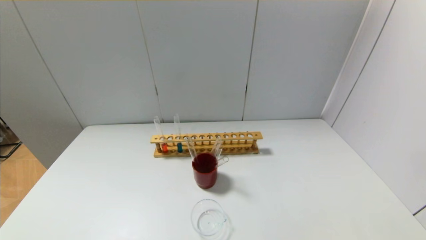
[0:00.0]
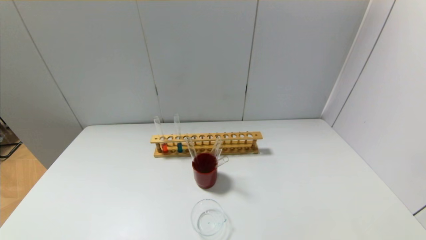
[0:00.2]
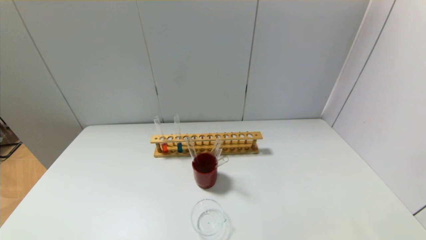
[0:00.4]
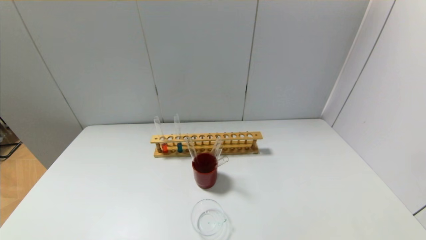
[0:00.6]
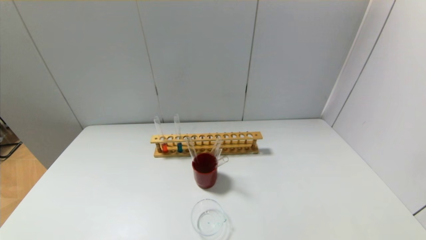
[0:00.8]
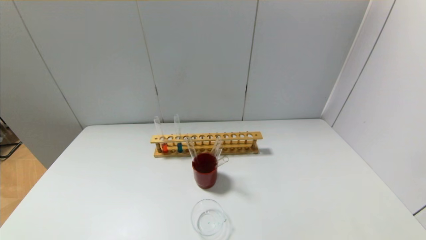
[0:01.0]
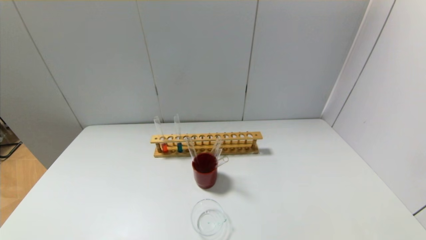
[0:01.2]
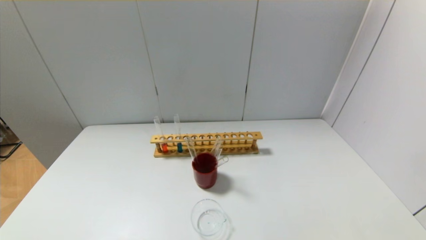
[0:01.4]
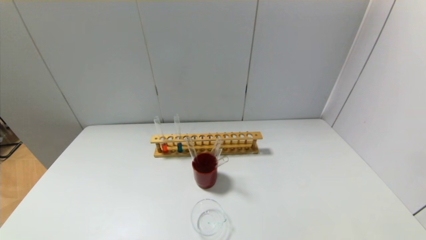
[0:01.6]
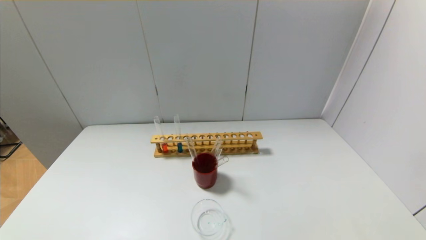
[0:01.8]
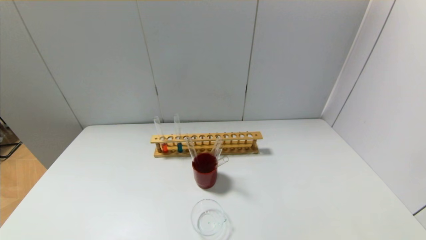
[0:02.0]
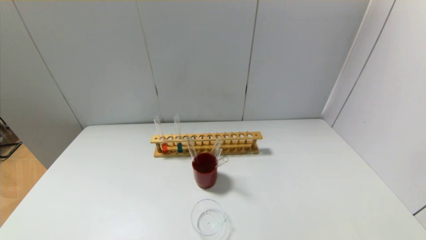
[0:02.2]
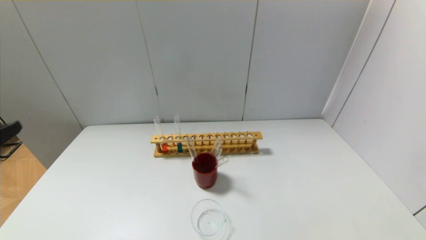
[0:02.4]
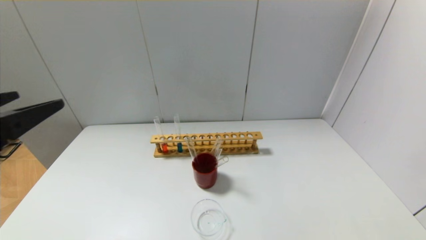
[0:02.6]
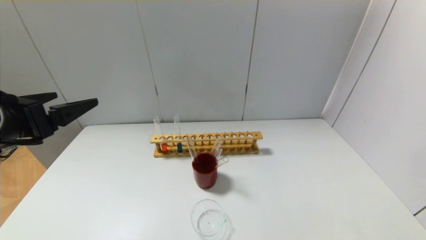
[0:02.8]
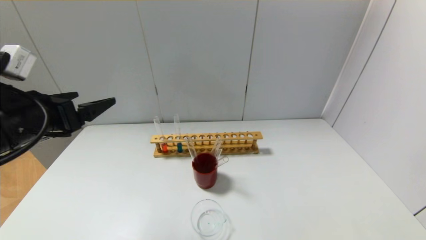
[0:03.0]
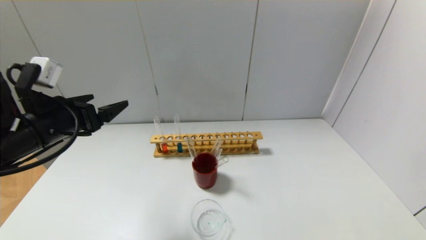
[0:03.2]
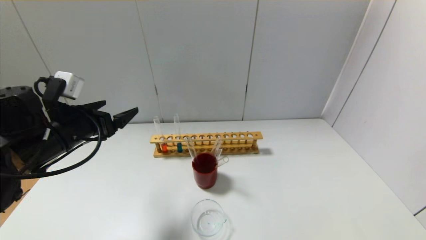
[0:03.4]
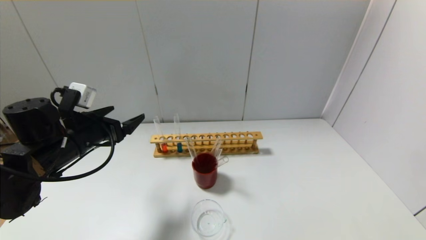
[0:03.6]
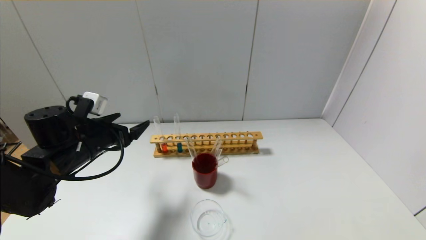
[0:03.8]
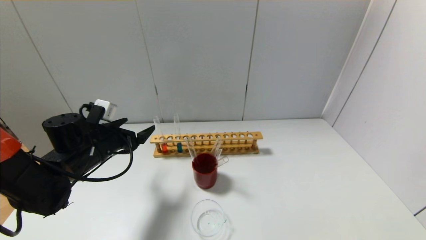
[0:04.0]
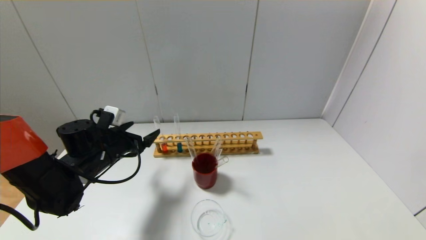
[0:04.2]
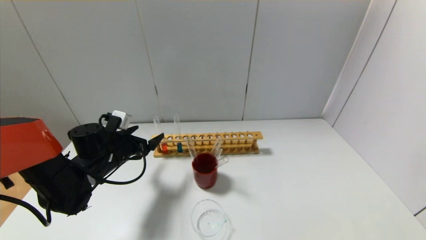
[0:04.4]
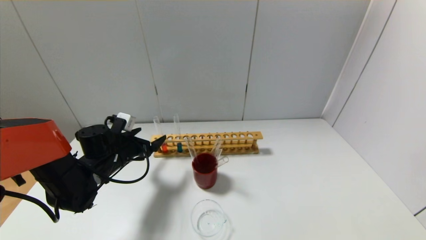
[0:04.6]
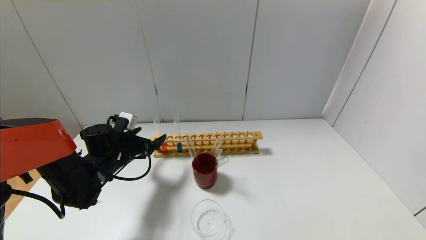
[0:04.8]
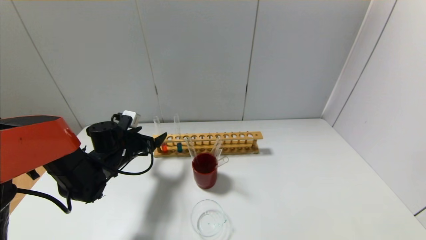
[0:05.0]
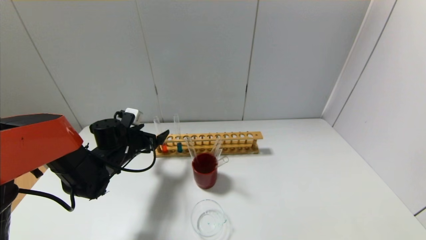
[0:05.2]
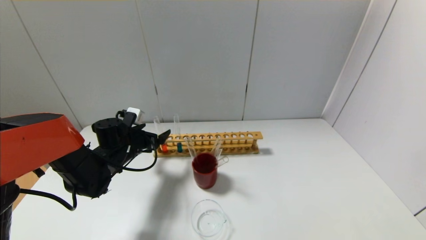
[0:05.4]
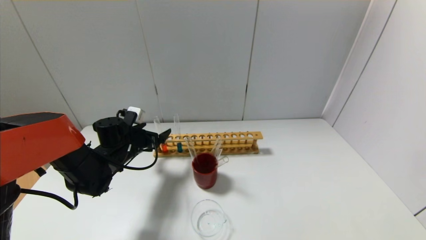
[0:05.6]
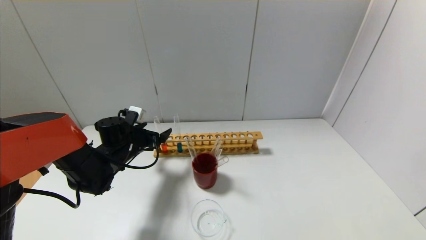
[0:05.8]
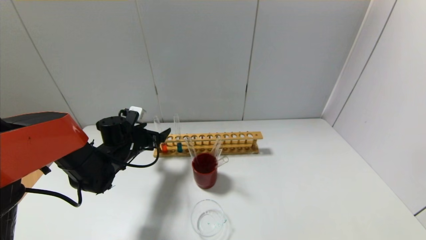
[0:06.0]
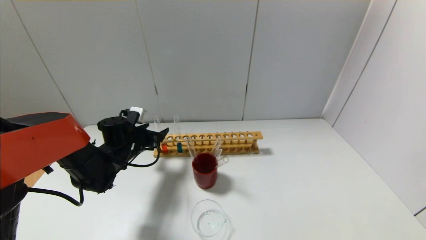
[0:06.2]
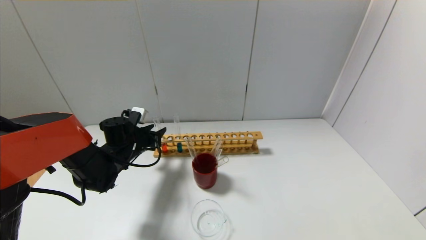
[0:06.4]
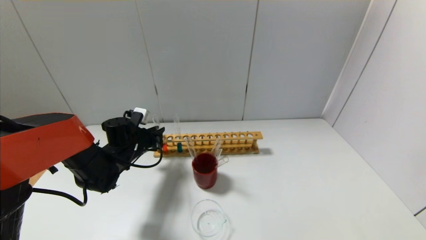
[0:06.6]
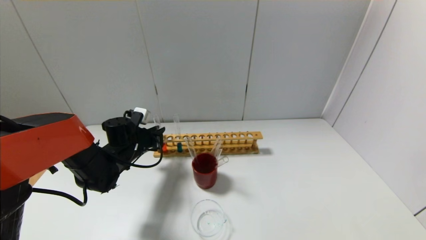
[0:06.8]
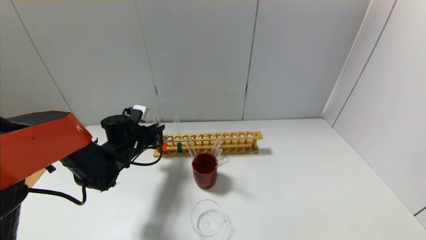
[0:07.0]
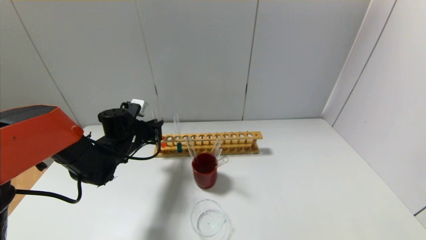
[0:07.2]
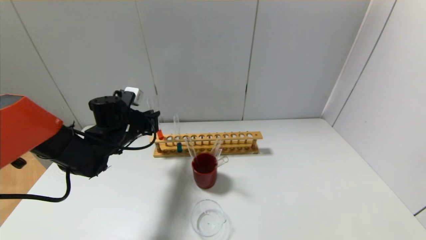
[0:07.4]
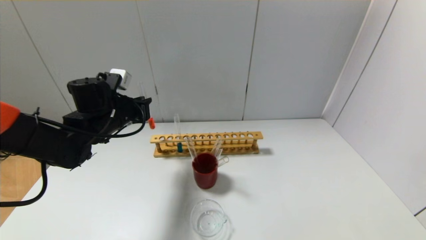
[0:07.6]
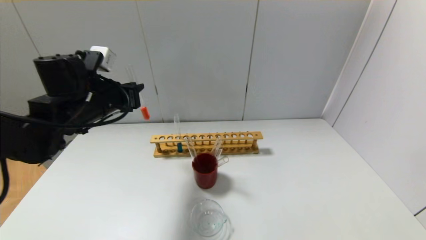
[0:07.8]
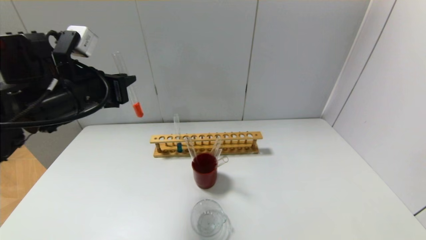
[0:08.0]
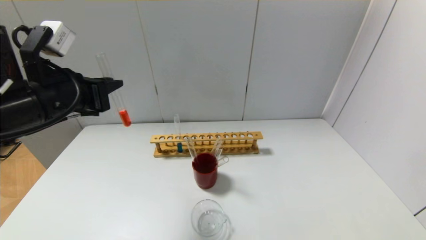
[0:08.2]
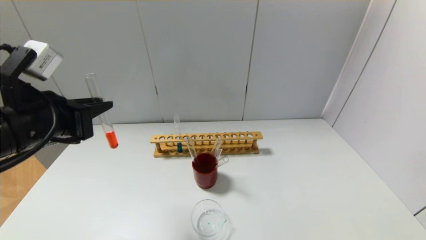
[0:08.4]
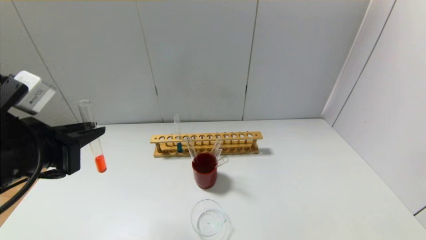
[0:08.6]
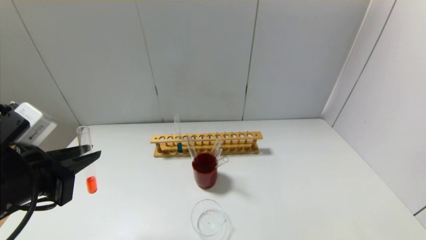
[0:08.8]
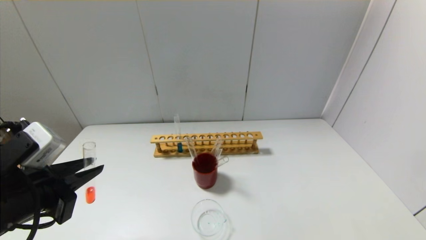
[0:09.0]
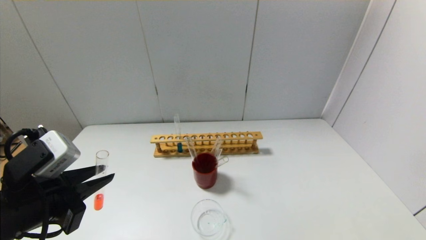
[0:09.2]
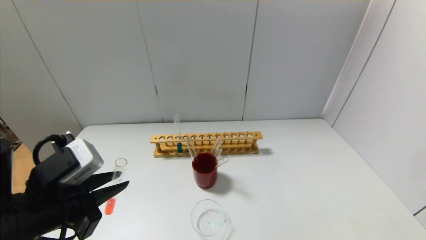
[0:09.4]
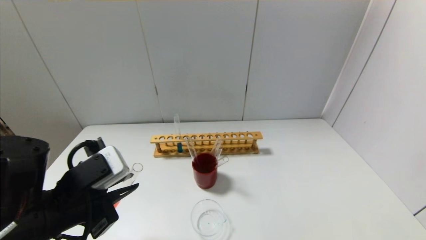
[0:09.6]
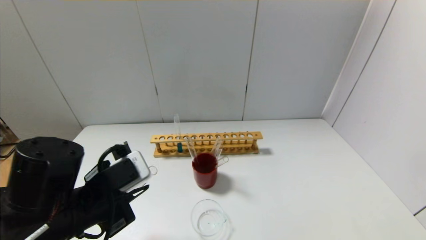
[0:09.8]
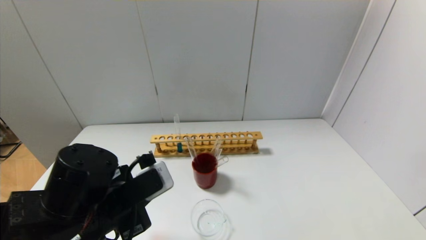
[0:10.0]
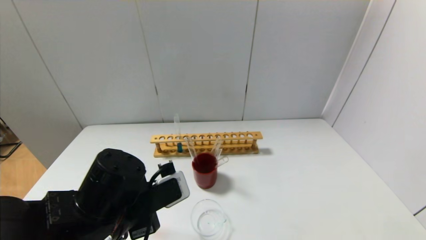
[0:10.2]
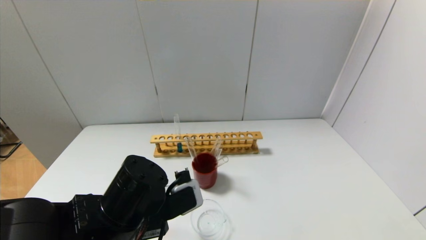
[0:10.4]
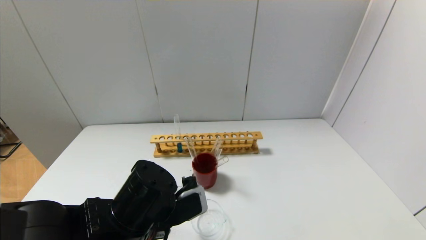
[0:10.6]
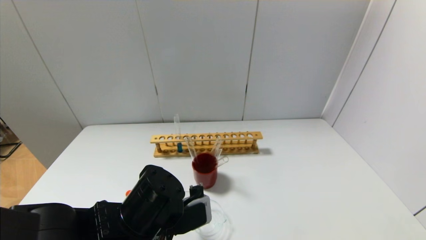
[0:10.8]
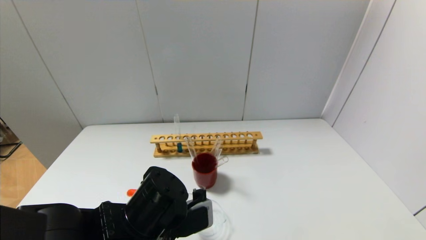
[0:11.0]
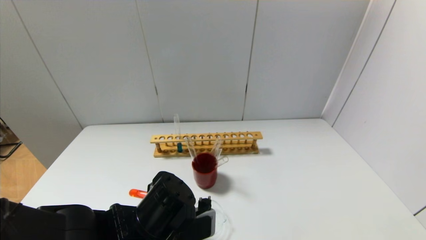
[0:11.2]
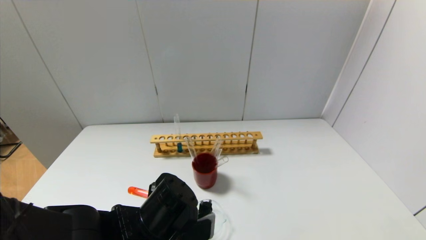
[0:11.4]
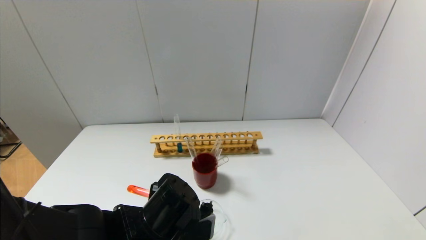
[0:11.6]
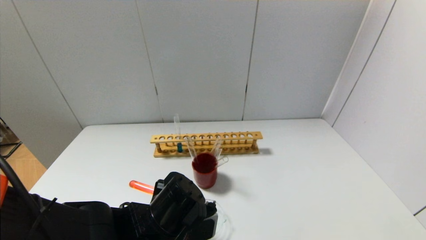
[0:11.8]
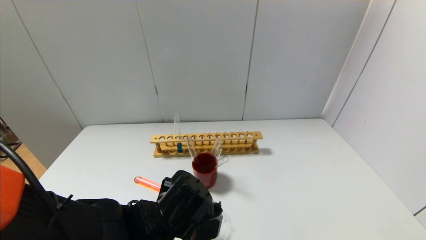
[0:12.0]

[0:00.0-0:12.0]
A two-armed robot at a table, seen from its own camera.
Step, 0:00.0 to 0:06.6: Grasp the red reagent with the left gripper.
0:01.6 to 0:03.0: The left gripper travels forward and upward by some 30 cm.
0:03.0 to 0:04.4: The left gripper heads downward and forward, covering approximately 20 cm.
0:04.4 to 0:06.0: The left gripper shifts by roughly 5 cm.
0:06.0 to 0:07.6: The left gripper is displaced upward by approximately 10 cm, and closes its fingers.
0:07.6 to 0:09.0: The left gripper travels backward by roughly 20 cm.
0:09.0 to 0:10.4: The left gripper is displaced to the right and downward by some 15 cm.
0:10.4 to 0:12.0: The left gripper moves roughly 5 cm.

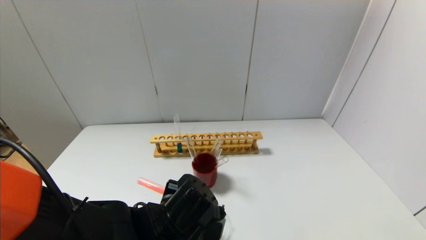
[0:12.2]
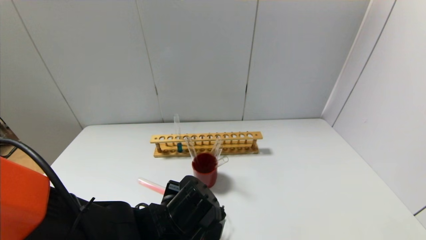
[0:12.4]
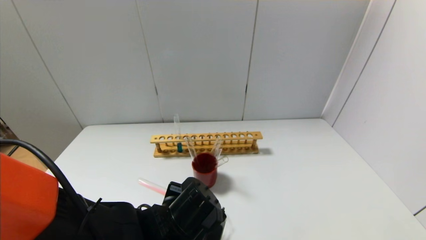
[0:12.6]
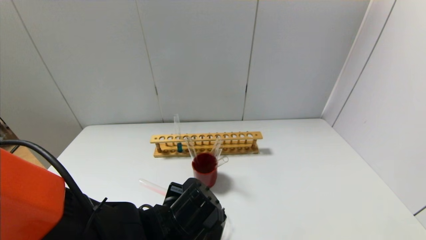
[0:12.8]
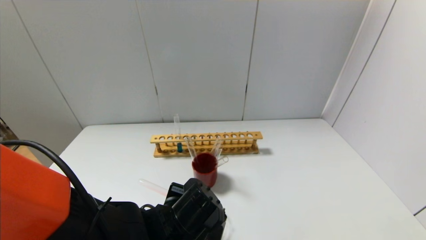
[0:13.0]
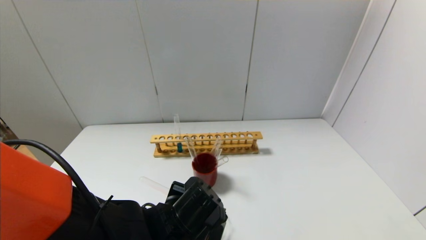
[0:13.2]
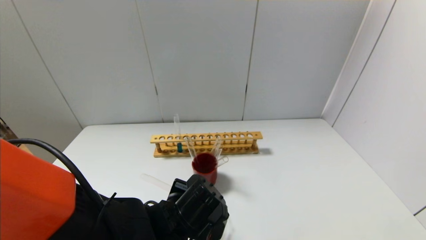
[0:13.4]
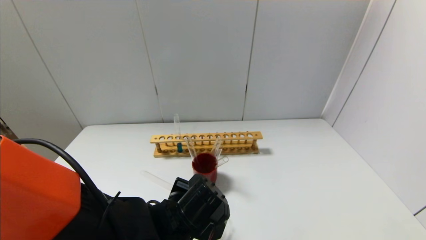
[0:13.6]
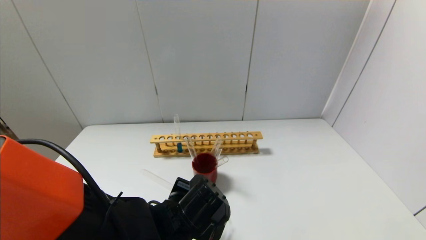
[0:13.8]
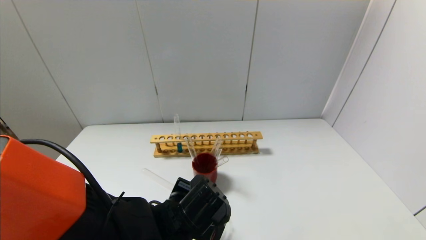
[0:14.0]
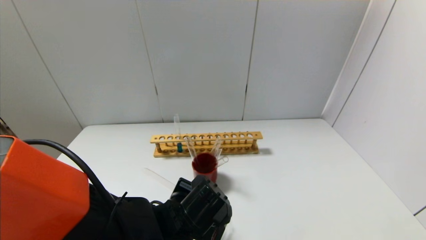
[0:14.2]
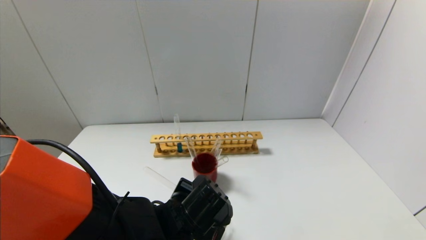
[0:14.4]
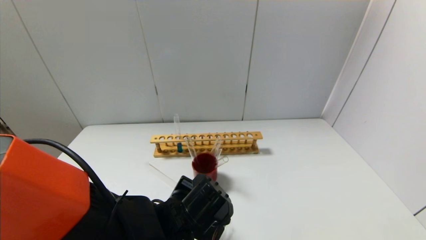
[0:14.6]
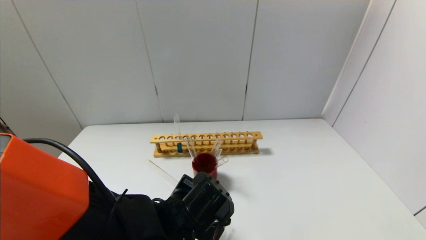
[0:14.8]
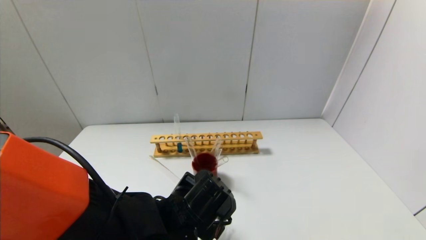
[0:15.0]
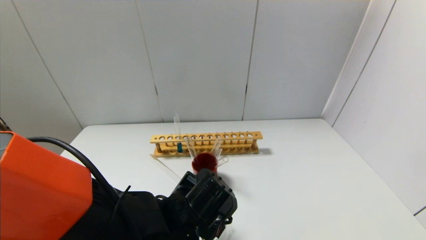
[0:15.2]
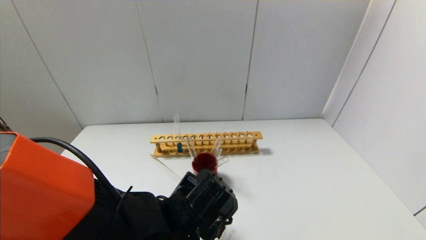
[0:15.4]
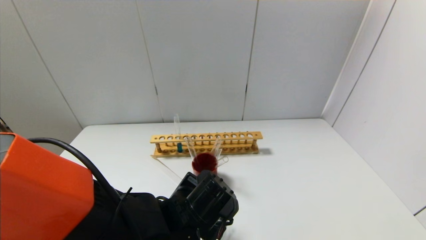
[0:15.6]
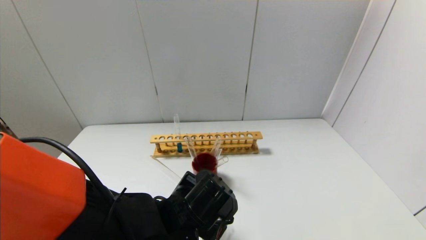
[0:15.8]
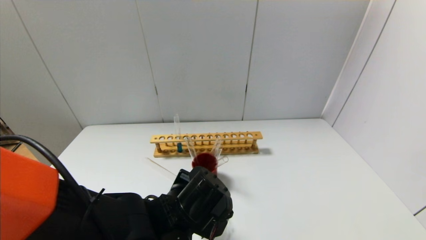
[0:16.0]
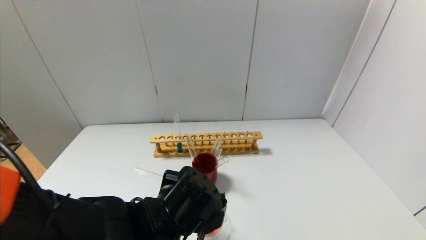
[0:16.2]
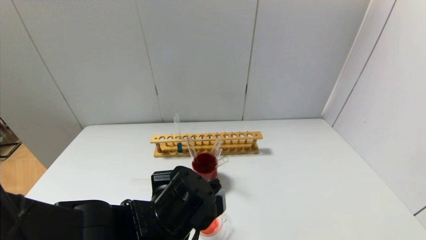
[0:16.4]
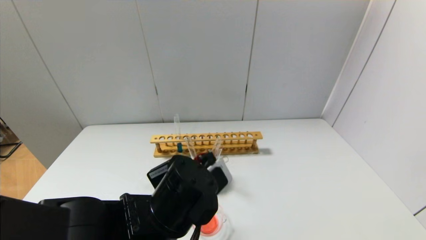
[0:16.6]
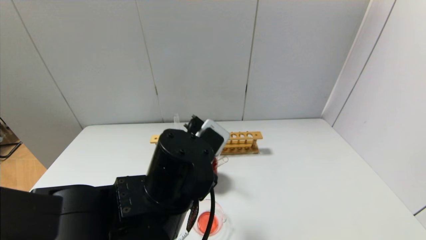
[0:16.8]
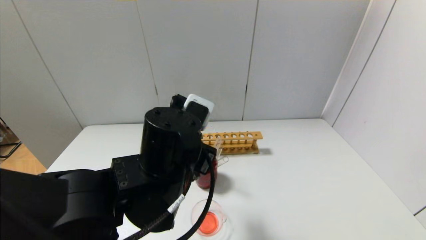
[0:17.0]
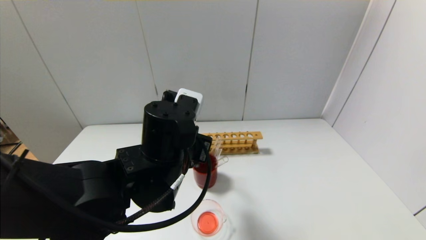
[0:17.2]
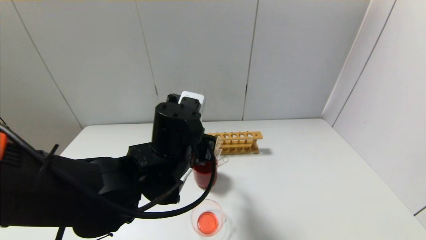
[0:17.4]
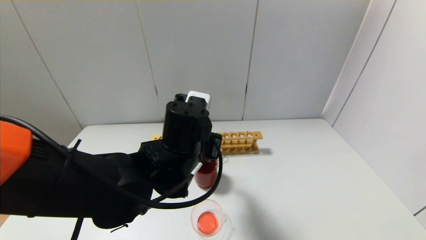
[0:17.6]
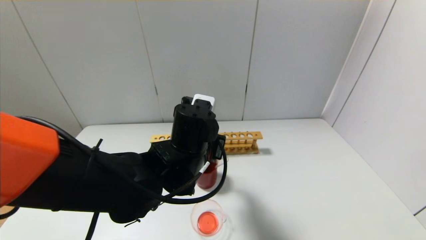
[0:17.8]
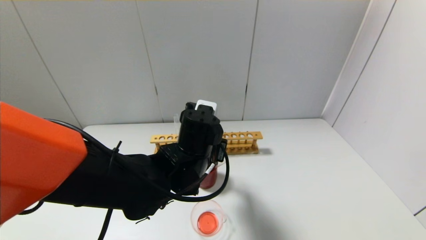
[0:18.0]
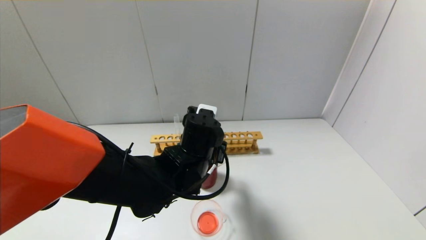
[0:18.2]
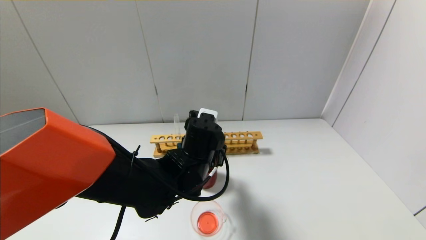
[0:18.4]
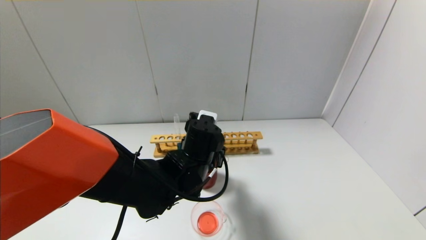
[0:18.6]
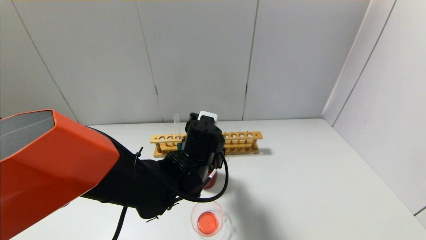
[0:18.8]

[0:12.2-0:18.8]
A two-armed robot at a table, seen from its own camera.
Step, 0:12.2 to 0:15.8: Pour the red reagent into the graduated cylinder with the left gripper.
0:12.2 to 0:13.8: The grippers stay close to where they were, moving slightly.
0:13.8 to 0:15.4: The grippers make only small movements.
0:15.4 to 0:17.2: The left gripper heads upward, covering some 10 cm.
0:17.2 to 0:18.8: The left gripper is displaced downward and forward by some 10 cm.
